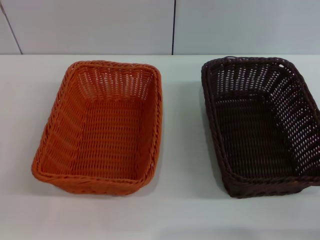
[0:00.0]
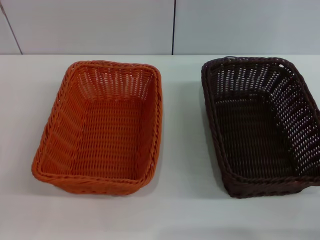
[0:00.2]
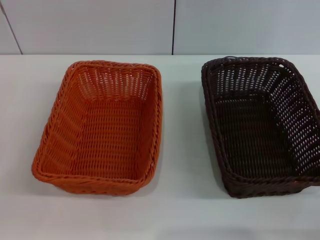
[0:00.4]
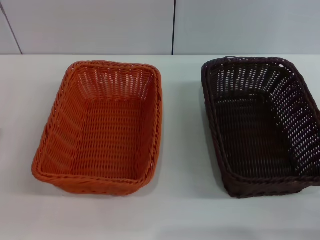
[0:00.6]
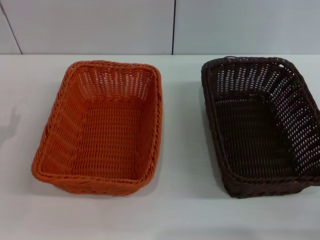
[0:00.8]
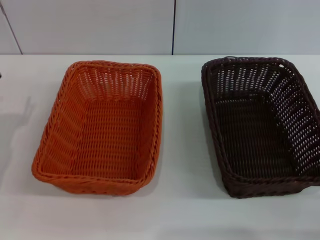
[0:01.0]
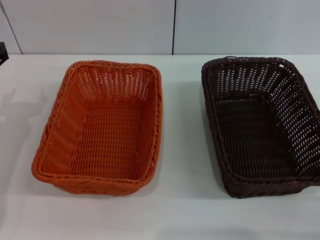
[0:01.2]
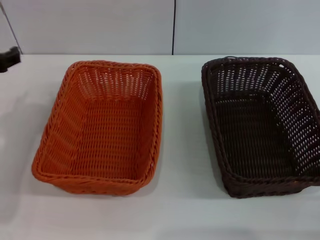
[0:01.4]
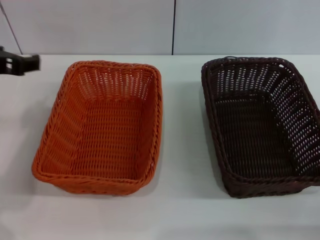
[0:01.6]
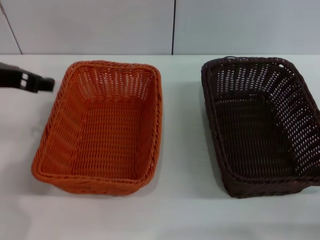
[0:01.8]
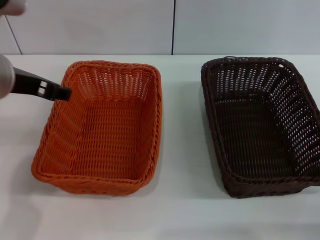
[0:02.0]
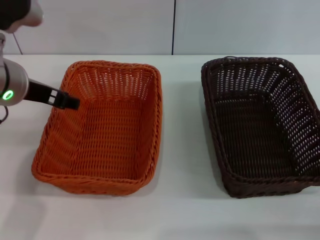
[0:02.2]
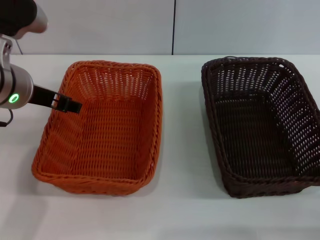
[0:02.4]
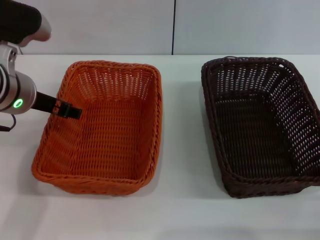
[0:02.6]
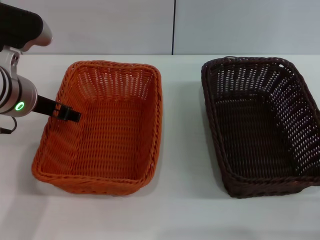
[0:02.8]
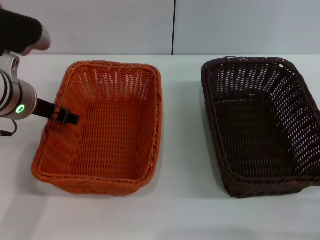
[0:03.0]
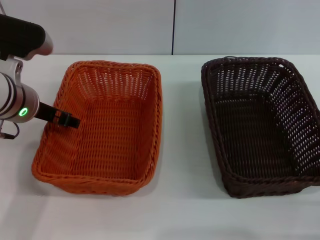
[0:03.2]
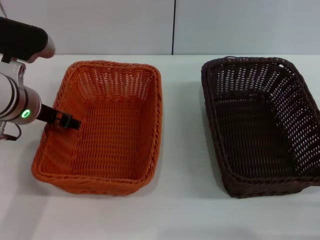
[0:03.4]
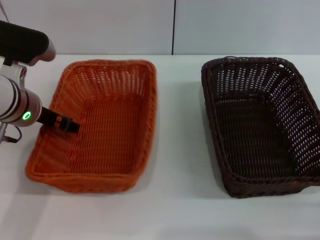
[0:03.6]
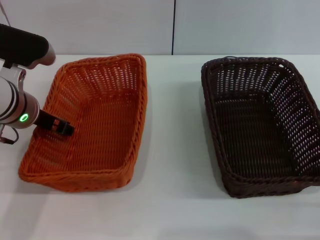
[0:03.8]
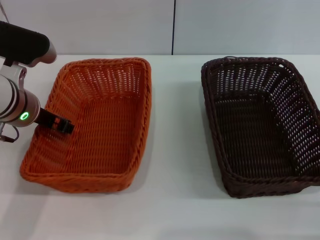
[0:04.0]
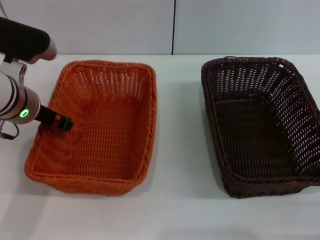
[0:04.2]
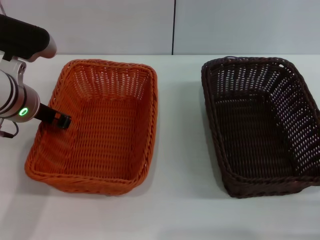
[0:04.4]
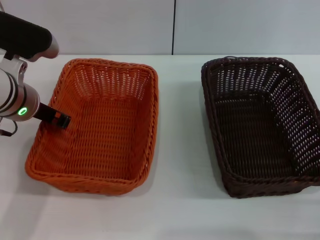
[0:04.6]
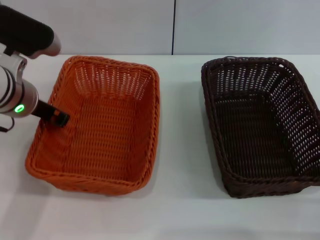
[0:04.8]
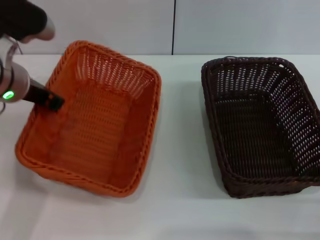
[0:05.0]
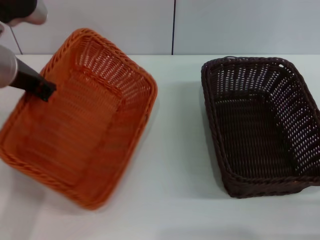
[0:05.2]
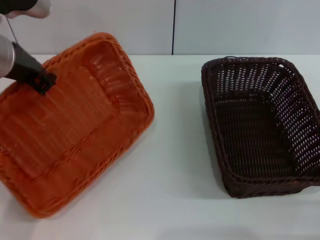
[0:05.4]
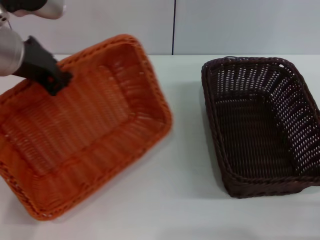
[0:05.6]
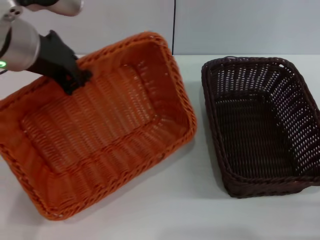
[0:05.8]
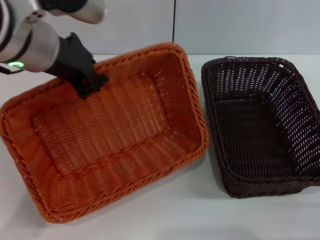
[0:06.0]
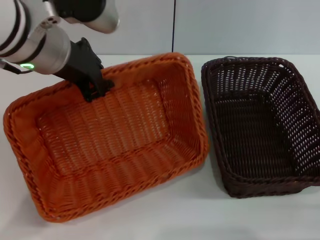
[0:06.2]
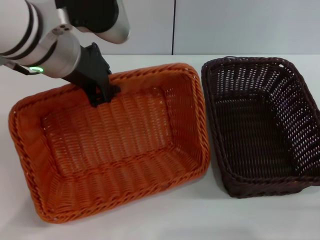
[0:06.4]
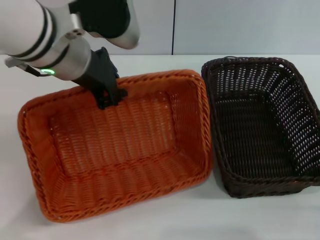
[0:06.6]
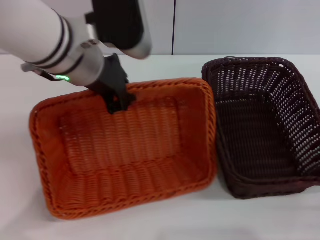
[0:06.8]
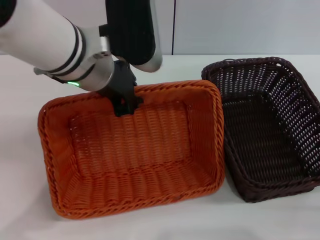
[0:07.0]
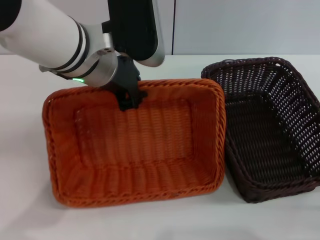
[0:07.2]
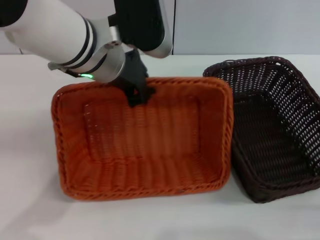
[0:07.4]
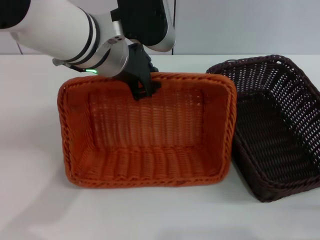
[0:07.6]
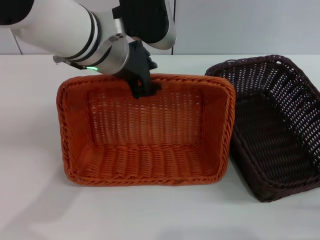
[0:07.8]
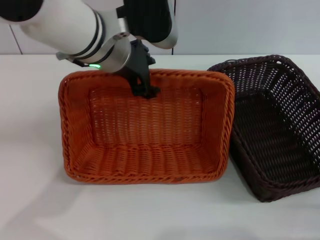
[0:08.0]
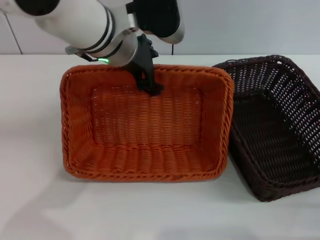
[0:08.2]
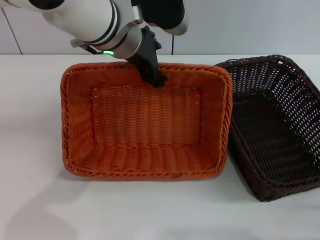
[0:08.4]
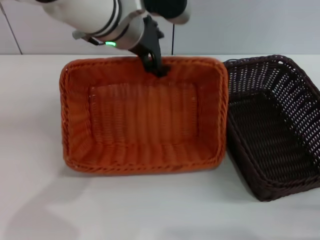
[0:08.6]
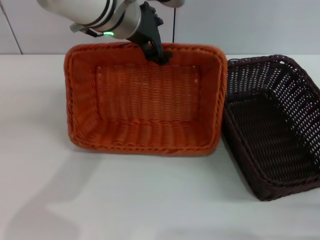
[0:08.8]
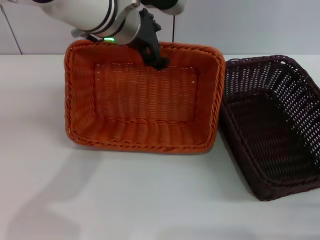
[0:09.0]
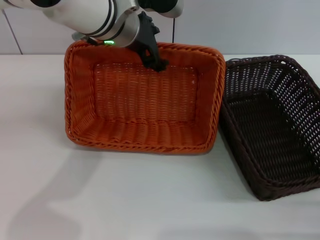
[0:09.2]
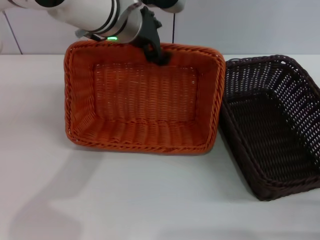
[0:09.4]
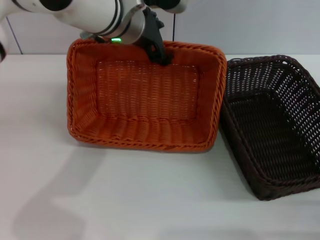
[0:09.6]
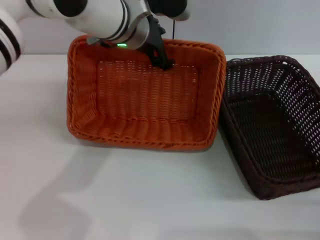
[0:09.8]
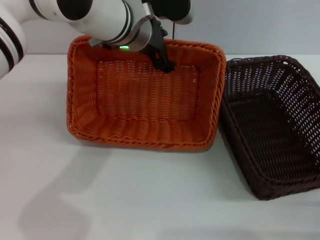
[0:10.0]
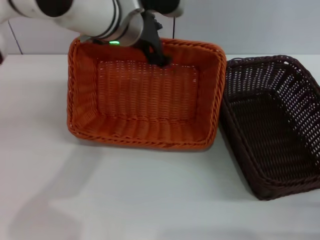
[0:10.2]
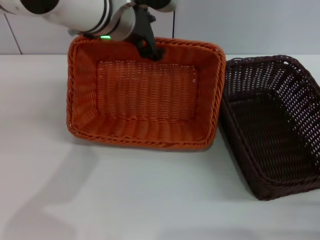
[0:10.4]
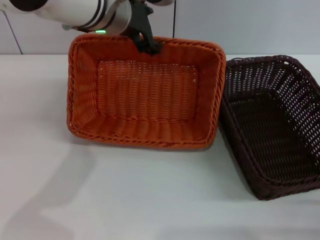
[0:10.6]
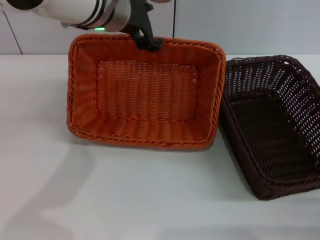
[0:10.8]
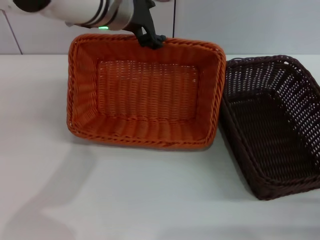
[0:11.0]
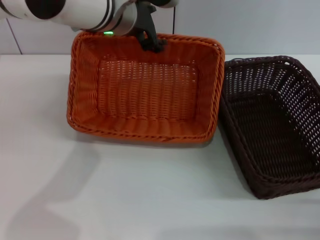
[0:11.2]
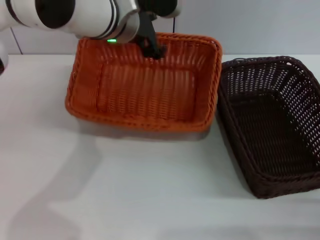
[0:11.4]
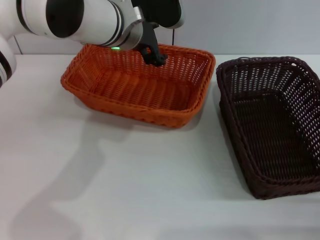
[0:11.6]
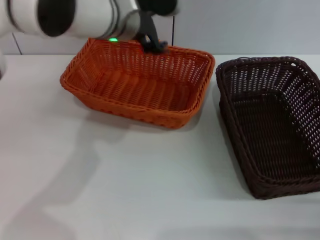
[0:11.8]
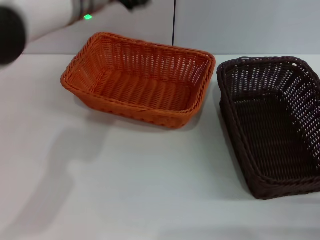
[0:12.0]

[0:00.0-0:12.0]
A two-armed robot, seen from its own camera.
Step, 0:00.0 to 0:03.6: Pick up the light basket with the left gripper.
Step, 0:03.8 to 0:11.4: Place the light basket in the center of view with the left gripper.
0:00.0 to 0:01.6: The left gripper moves upward, forward and to the right, approximately 25 cm.
0:01.6 to 0:03.0: The left gripper is displaced downward by roughly 5 cm.
0:03.0 to 0:04.4: The left gripper closes.
0:04.4 to 0:06.0: The left gripper is displaced upward and to the right by about 15 cm, and closes its fingers.
0:06.0 to 0:07.6: The left gripper moves to the right, roughly 5 cm.
0:07.6 to 0:09.0: The left gripper moves forward, some 5 cm, and opens up.
0:09.0 to 0:10.4: The grippers stay close to where they were, moving slightly.

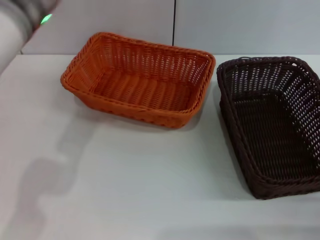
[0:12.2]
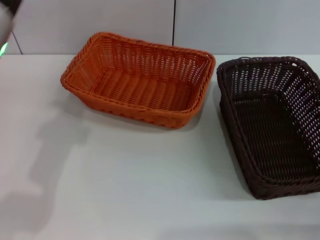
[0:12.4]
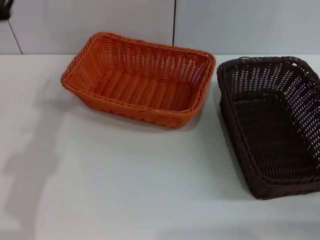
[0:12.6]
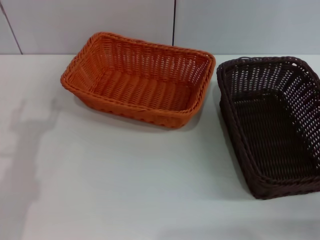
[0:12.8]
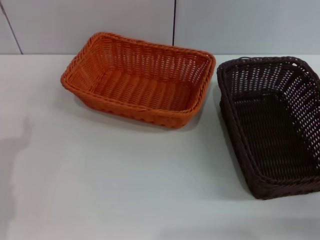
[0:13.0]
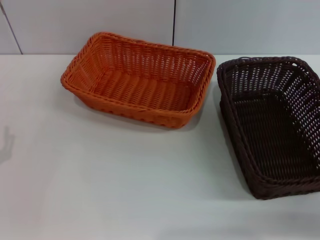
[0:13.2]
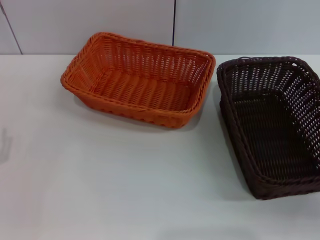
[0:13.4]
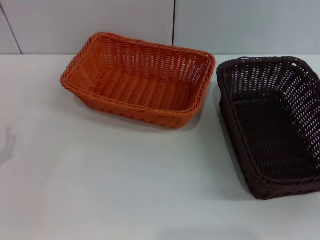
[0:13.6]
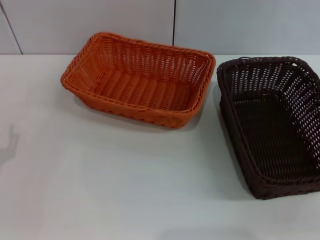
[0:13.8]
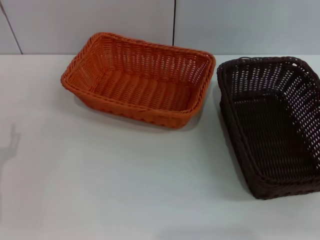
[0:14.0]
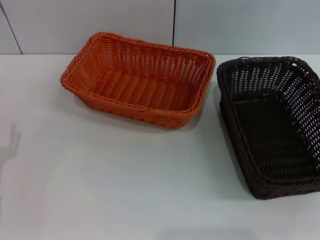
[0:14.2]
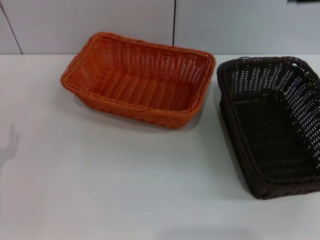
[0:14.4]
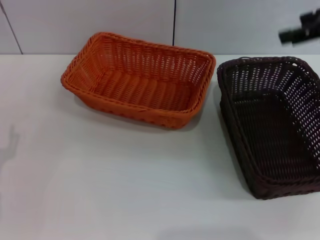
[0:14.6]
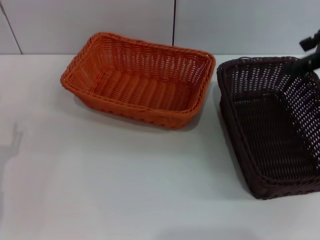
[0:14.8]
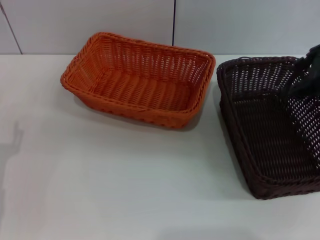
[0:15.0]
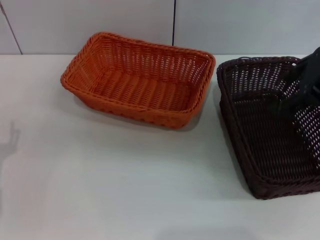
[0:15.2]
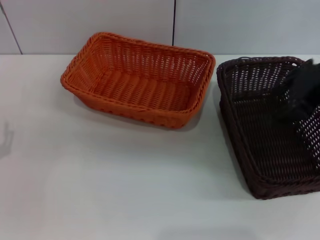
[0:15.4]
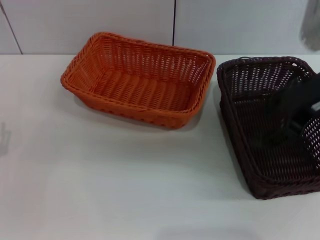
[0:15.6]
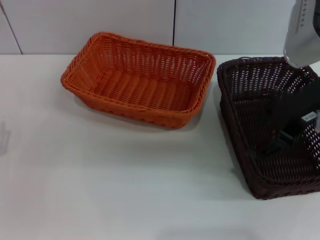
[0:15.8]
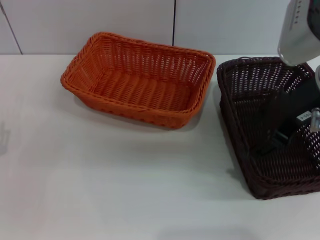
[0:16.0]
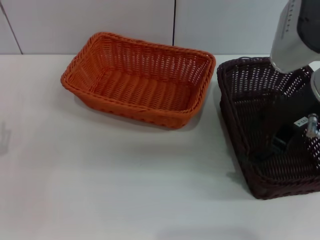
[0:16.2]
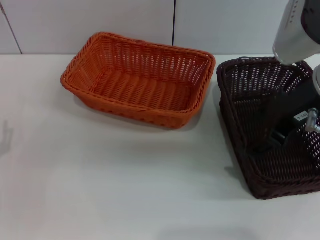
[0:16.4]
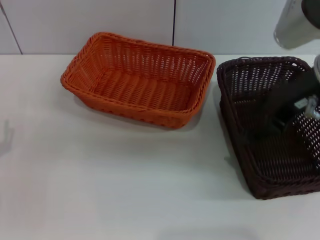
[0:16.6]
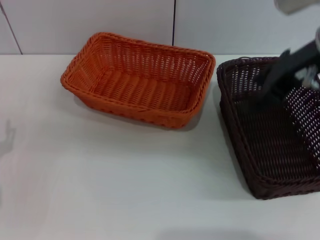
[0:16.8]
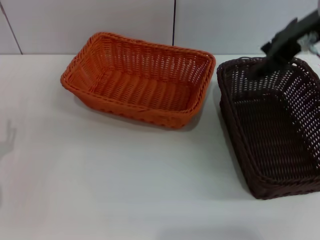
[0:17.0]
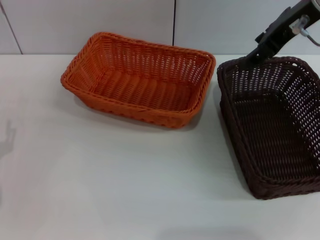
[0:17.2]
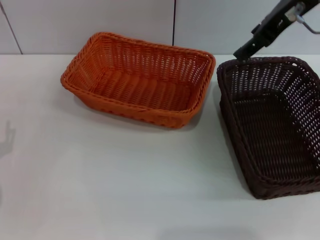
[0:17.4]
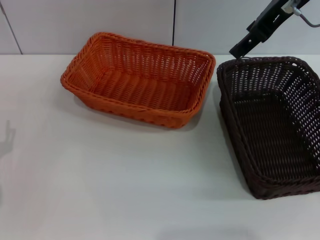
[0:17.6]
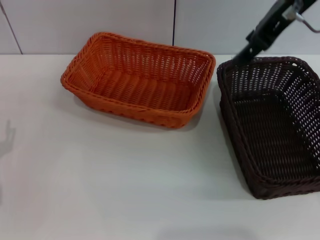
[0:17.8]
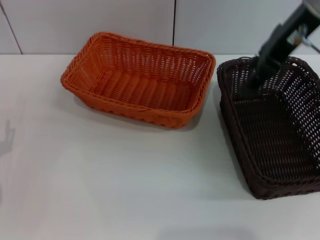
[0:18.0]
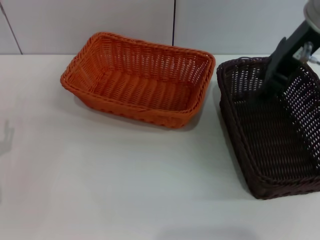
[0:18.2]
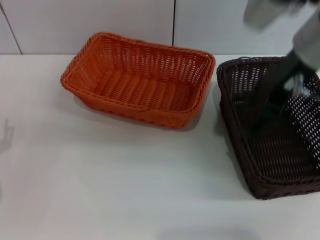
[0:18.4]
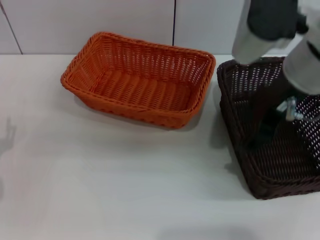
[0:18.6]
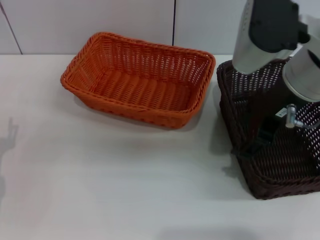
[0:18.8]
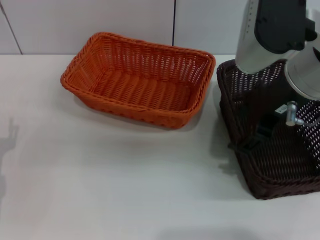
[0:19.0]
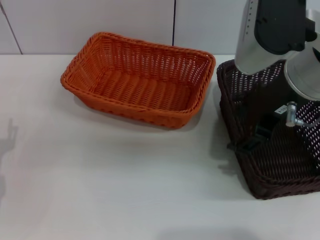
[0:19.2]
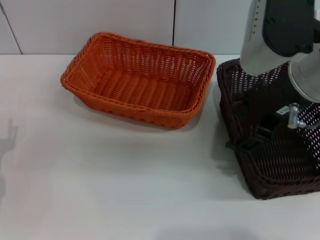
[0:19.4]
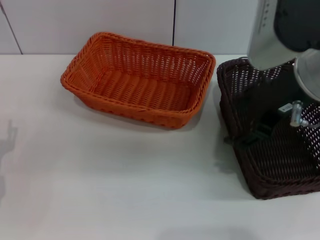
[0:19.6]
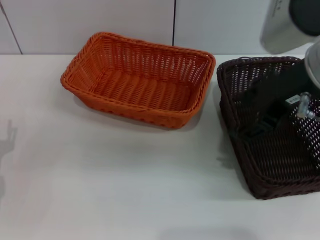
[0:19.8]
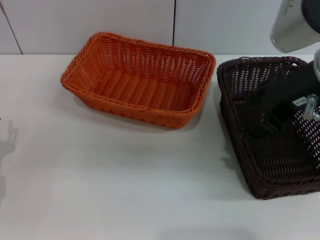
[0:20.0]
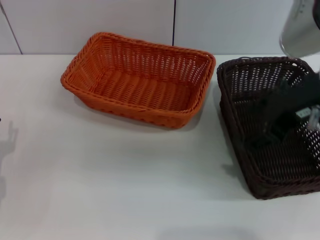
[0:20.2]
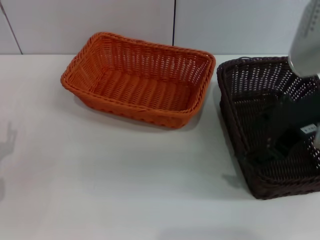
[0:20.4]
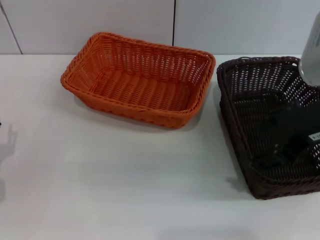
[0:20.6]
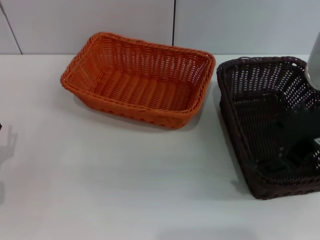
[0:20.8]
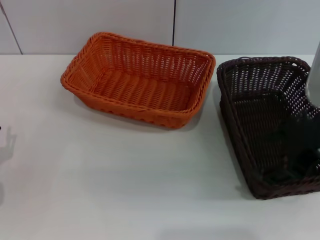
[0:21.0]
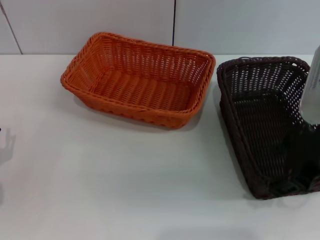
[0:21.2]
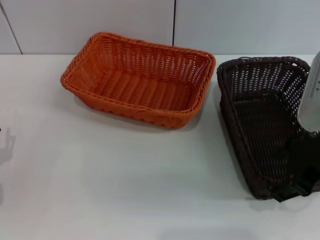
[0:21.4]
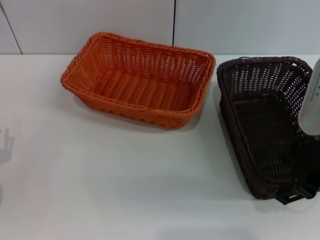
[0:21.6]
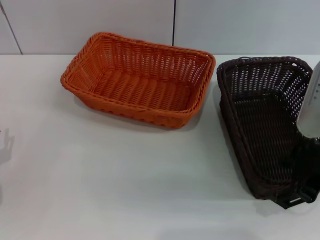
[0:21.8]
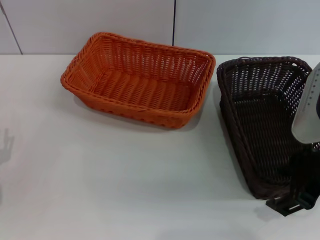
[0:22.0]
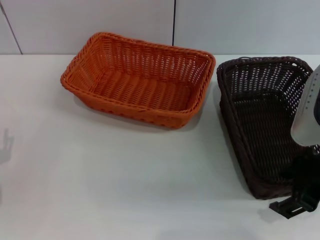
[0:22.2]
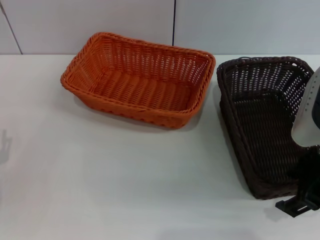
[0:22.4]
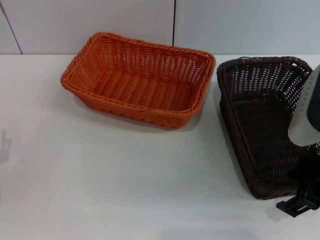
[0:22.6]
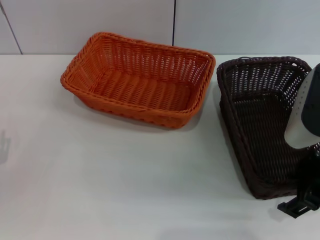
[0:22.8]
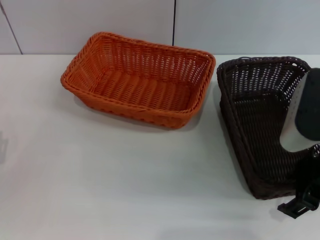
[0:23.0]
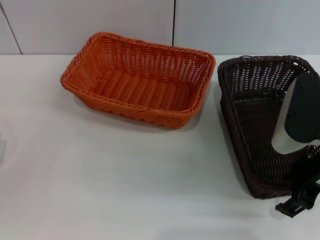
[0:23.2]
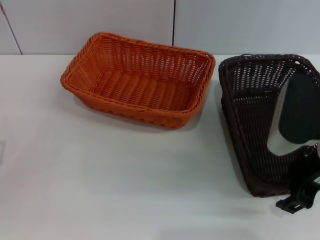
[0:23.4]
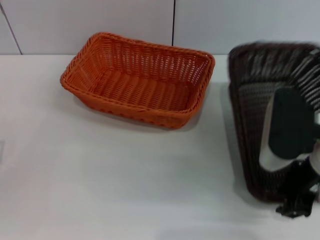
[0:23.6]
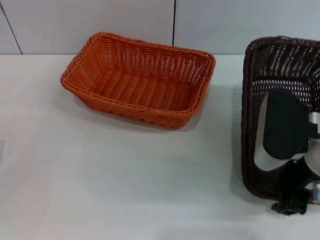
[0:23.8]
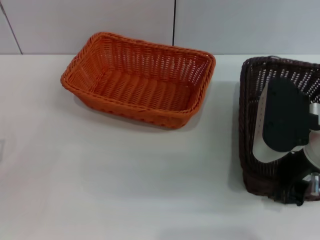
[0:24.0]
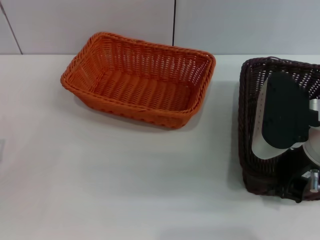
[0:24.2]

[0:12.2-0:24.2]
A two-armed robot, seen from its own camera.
0:12.2 to 0:13.8: The left gripper heads downward, backward and to the left, covering roughly 30 cm.
0:13.8 to 0:15.2: The right gripper travels upward and to the left by about 15 cm.
0:15.2 to 0:16.6: The right gripper ends up some 5 cm from where it was.
0:16.6 to 0:18.2: The right gripper heads forward, covering roughly 5 cm.
0:18.2 to 0:19.8: The right gripper moves backward, some 10 cm.
0:19.8 to 0:21.2: The right gripper heads backward, covering approximately 5 cm.
0:21.2 to 0:22.6: There are only small adjustments of the grippers.
0:22.6 to 0:24.2: The right gripper closes.
